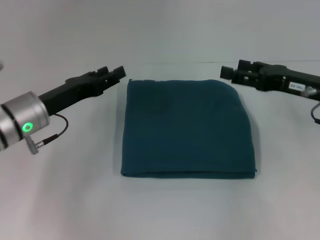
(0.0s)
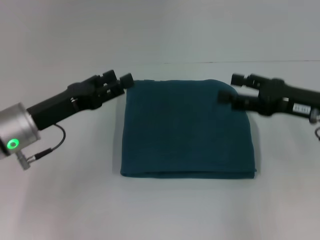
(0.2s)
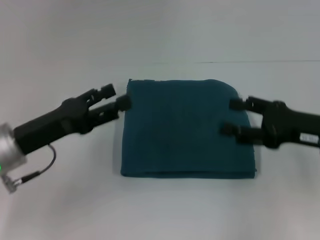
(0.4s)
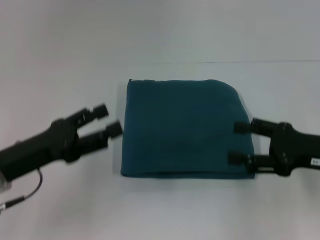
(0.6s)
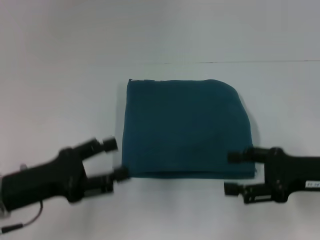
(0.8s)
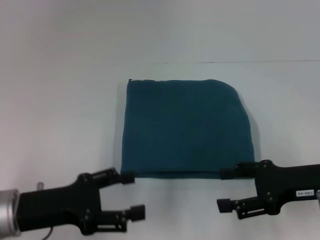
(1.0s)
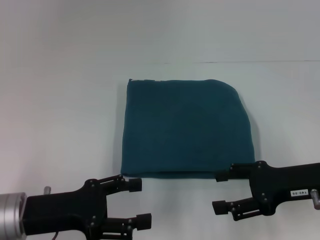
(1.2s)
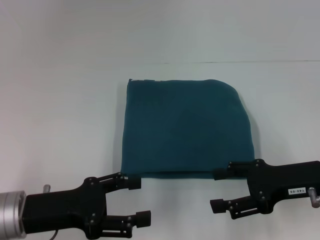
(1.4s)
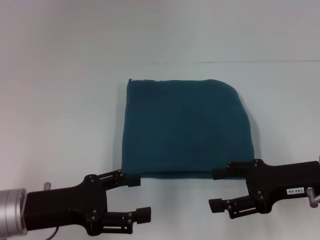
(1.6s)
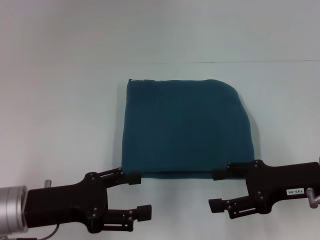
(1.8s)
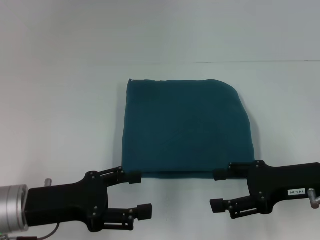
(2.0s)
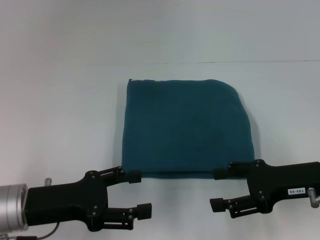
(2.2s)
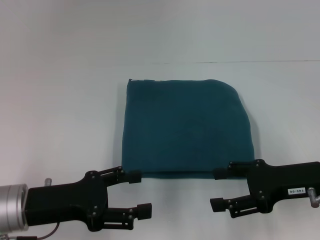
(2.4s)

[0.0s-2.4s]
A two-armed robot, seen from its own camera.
0.0s to 1.2s: The left gripper is displaced backward by about 10 cm, and opens. The right gripper goes roughly 10 cm backward.
1.2s to 2.4s: Both grippers stay about where they are.

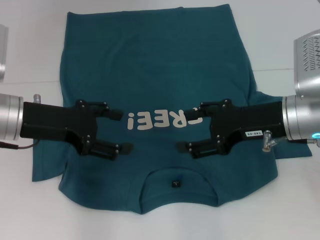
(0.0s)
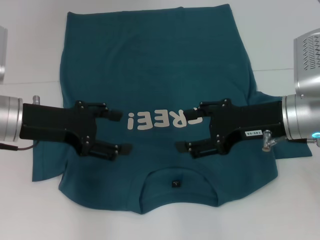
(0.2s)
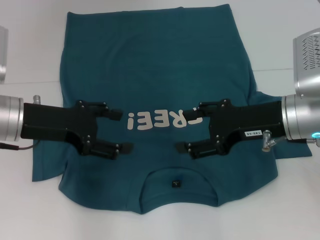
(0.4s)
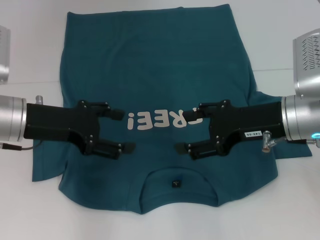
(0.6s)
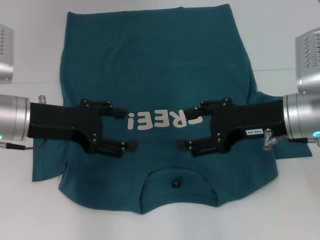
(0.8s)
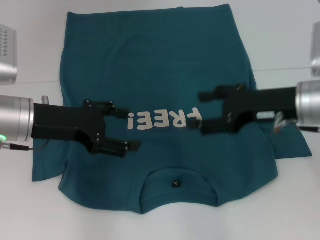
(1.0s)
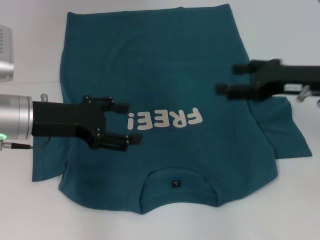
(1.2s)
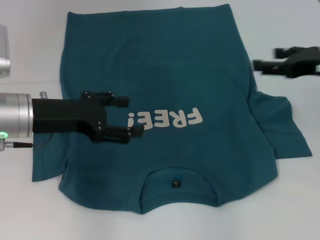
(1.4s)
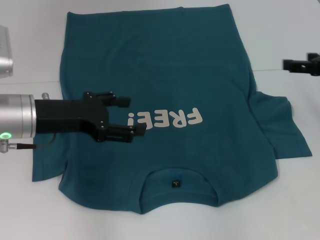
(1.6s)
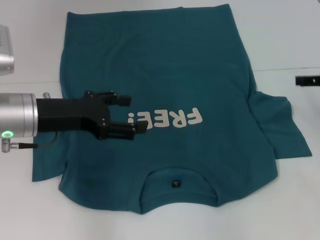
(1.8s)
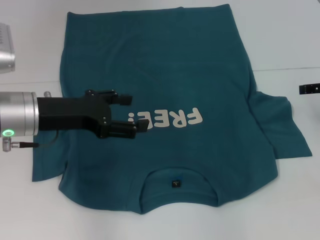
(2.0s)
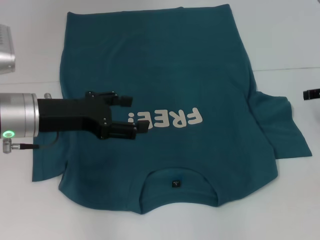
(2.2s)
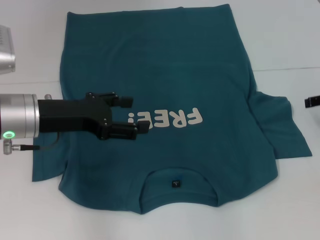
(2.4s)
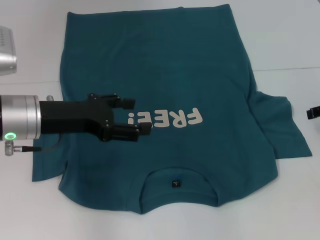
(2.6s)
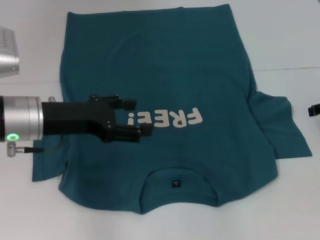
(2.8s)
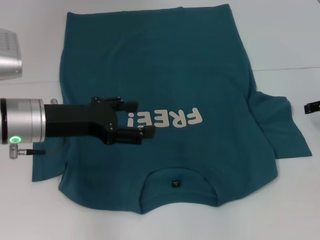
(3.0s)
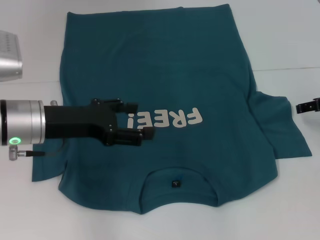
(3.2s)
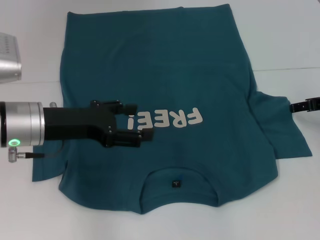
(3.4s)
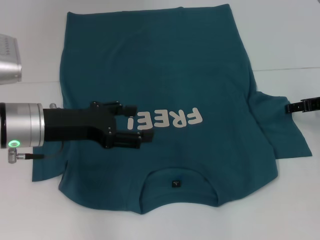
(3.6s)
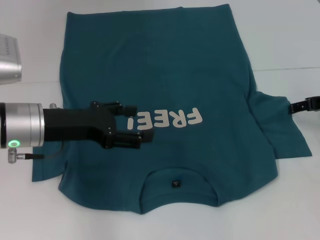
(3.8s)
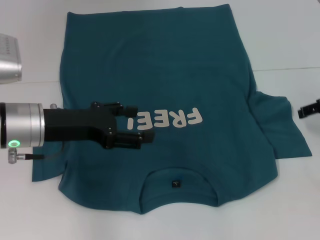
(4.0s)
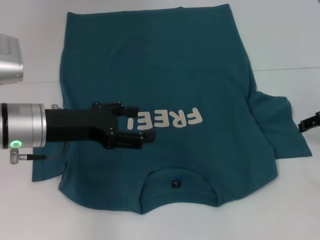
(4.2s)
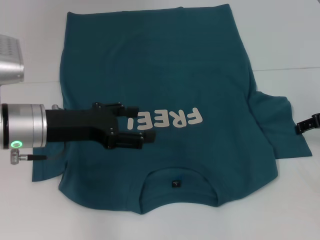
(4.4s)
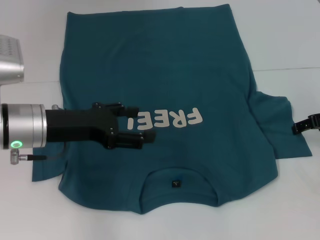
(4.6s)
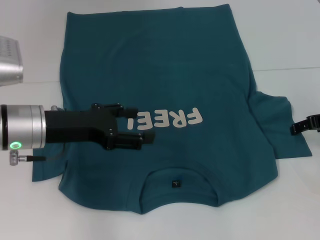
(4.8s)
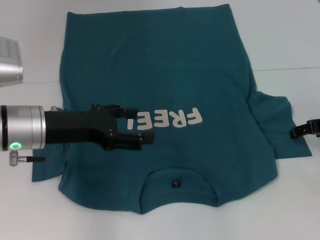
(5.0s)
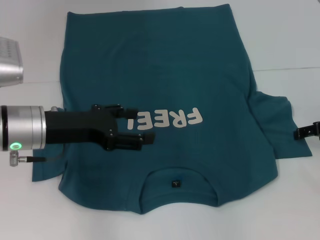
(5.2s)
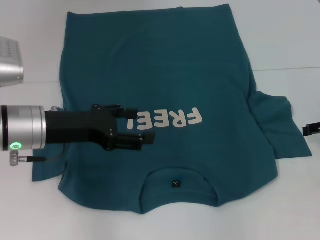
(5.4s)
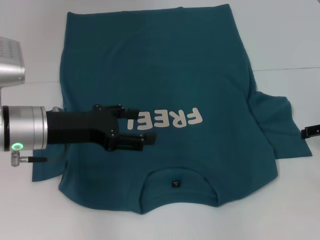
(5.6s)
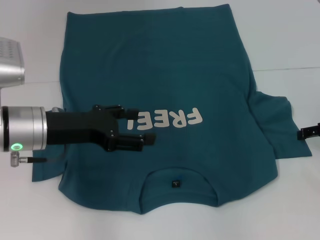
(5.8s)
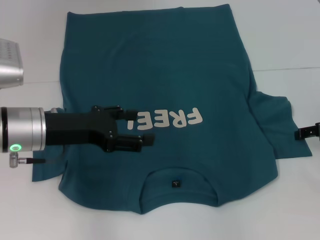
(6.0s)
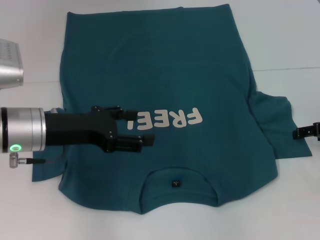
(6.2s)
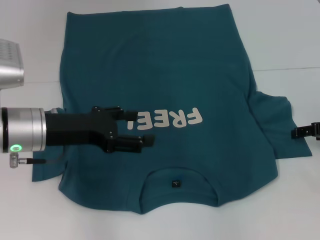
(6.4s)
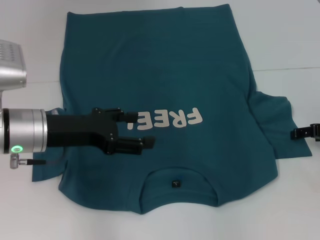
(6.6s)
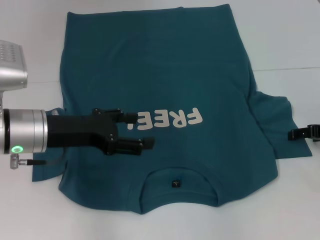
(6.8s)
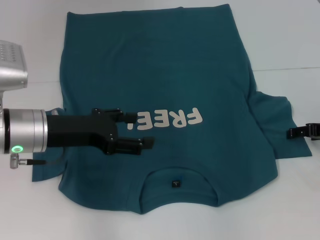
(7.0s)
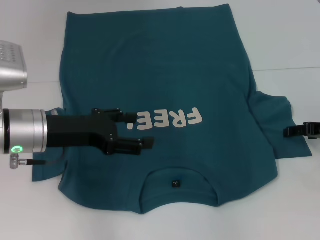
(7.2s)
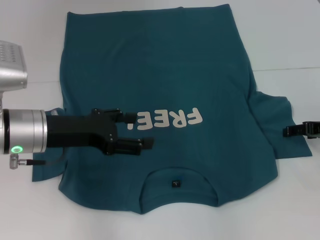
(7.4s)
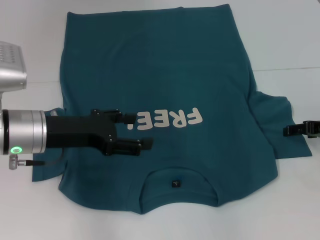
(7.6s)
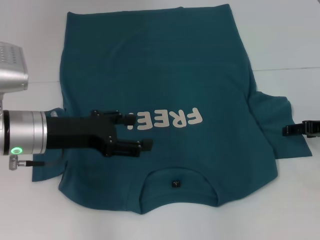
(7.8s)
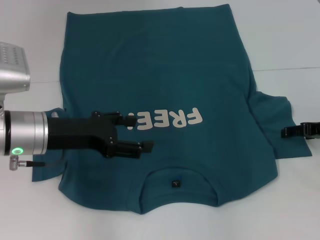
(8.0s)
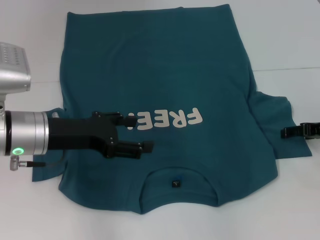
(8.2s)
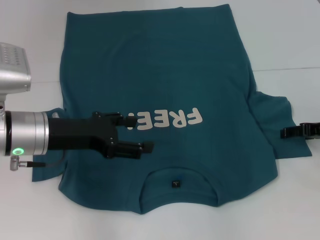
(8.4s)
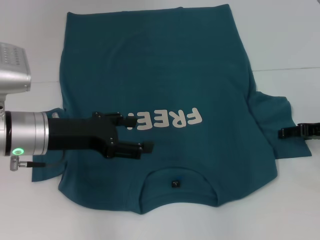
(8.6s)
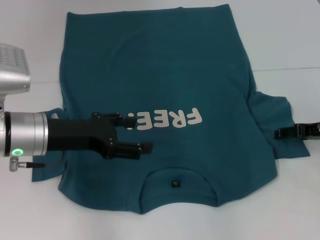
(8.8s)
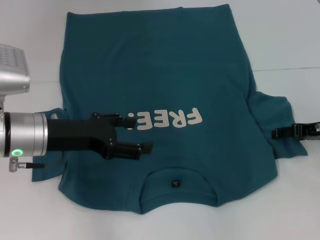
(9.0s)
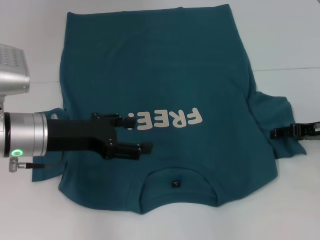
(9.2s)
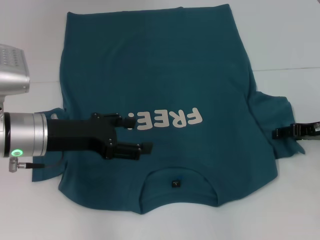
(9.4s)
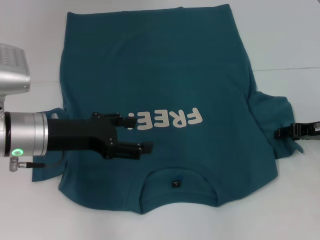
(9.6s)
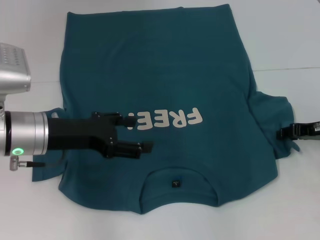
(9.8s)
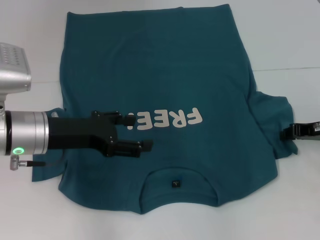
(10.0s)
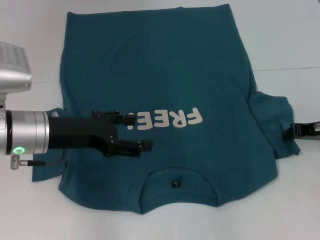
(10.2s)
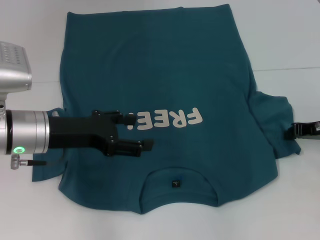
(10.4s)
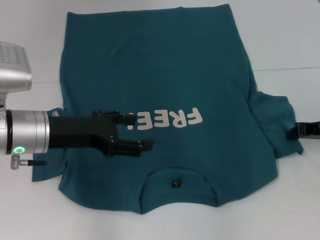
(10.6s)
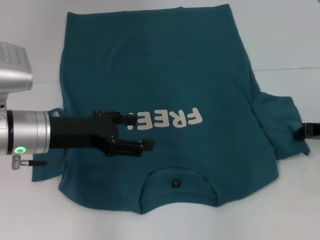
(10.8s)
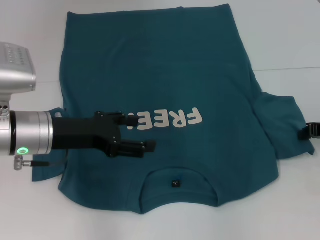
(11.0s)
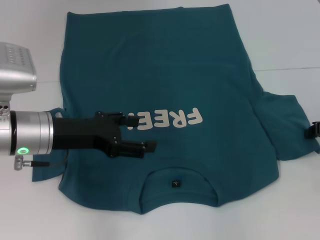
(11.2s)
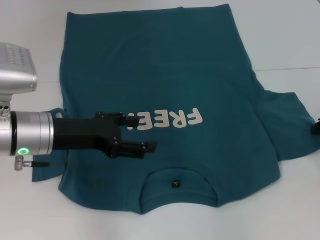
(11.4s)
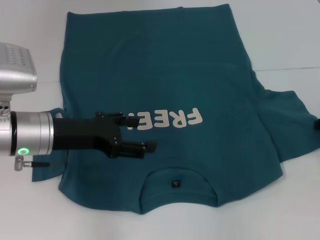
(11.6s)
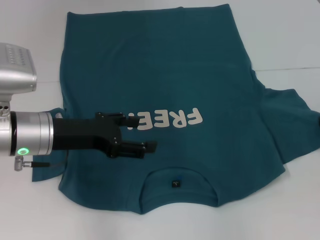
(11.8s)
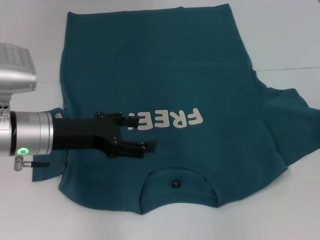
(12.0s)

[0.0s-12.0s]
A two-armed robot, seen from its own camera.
0.0s to 1.6s: The right gripper is displaced to the right by approximately 15 cm.
3.0s to 7.6s: There are only small adjustments of the grippers.
7.6s to 9.0s: The grippers stay close to where they were, moving slightly.
9.0s to 10.4s: The right gripper closes up.
10.4s to 12.0s: The grippers stay close to where they were, moving slightly.

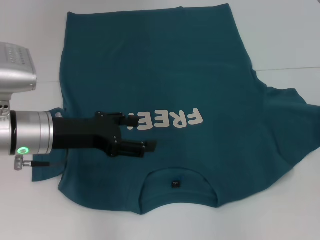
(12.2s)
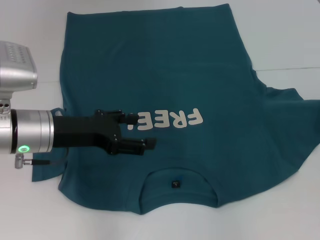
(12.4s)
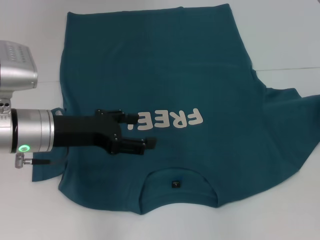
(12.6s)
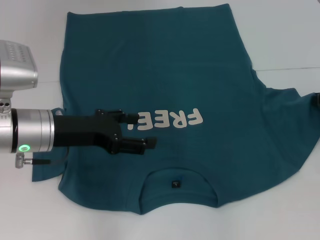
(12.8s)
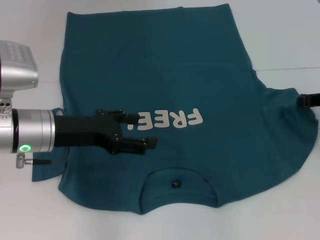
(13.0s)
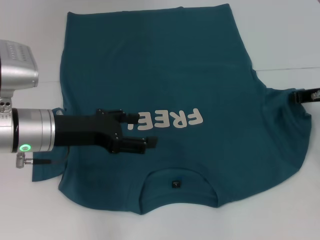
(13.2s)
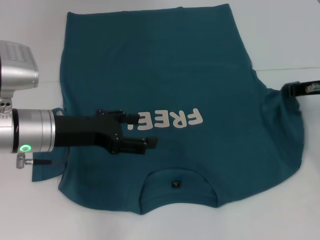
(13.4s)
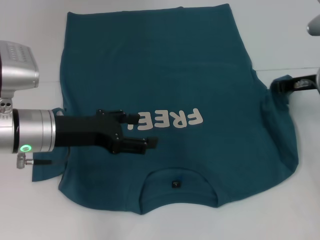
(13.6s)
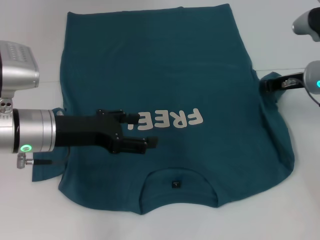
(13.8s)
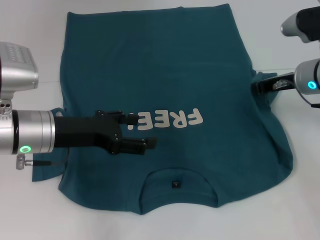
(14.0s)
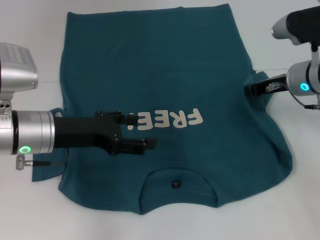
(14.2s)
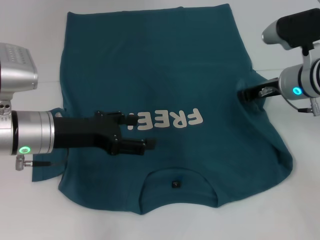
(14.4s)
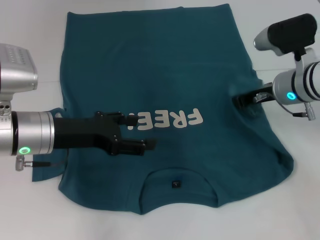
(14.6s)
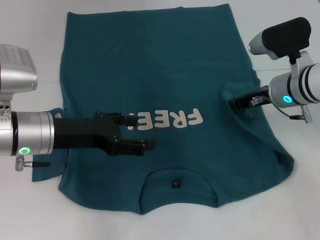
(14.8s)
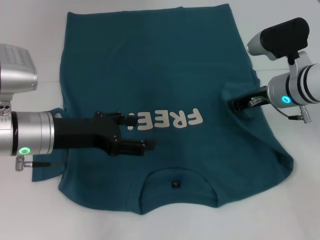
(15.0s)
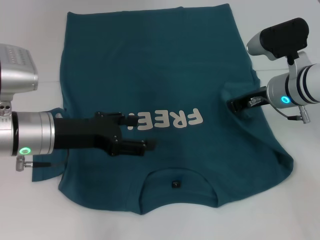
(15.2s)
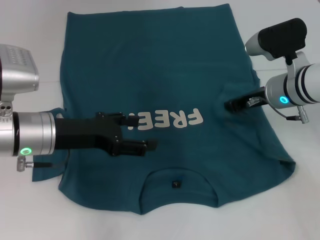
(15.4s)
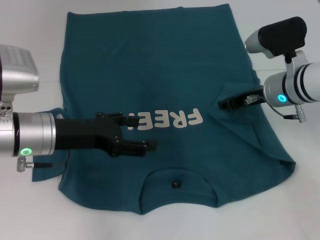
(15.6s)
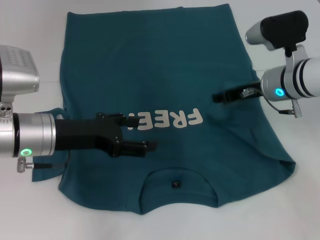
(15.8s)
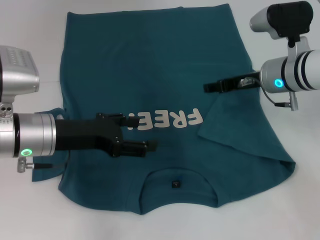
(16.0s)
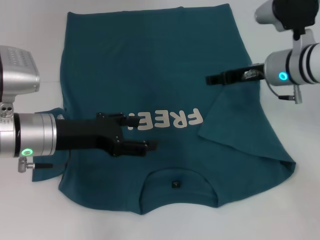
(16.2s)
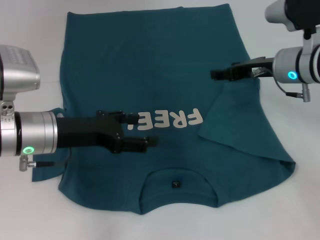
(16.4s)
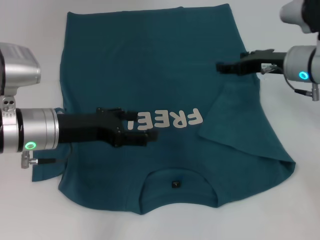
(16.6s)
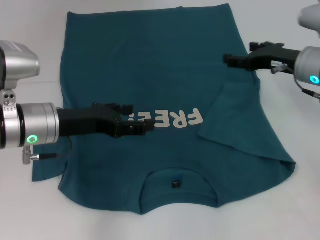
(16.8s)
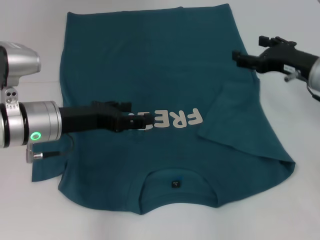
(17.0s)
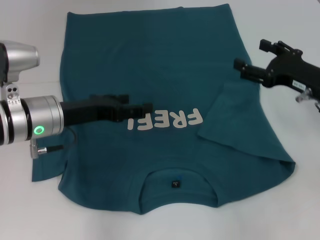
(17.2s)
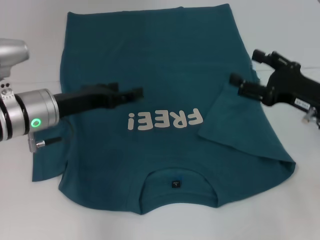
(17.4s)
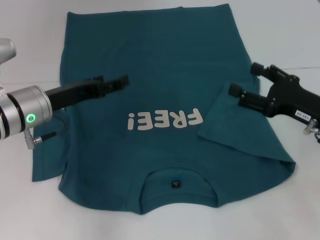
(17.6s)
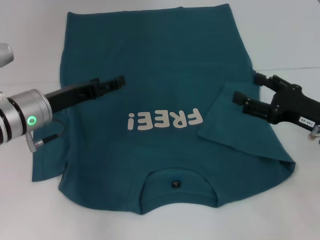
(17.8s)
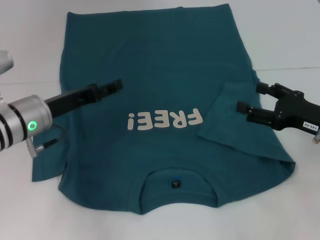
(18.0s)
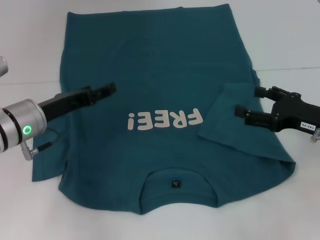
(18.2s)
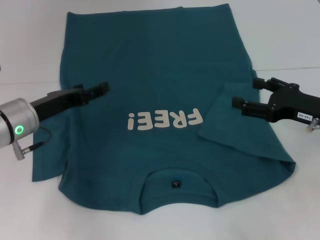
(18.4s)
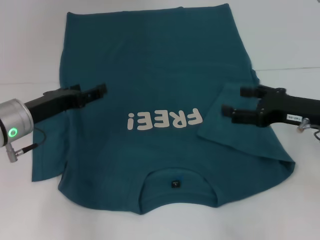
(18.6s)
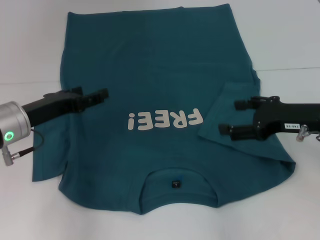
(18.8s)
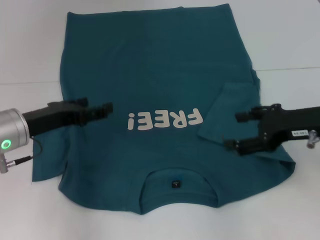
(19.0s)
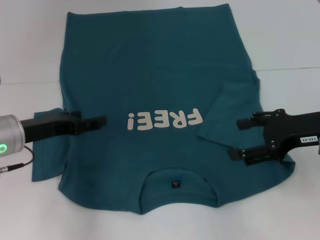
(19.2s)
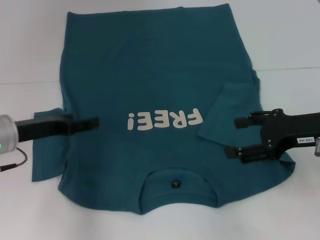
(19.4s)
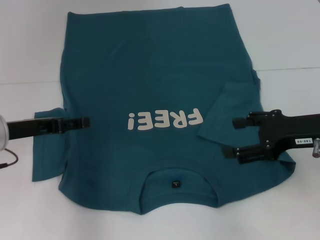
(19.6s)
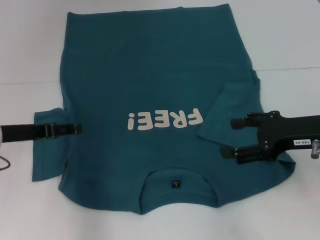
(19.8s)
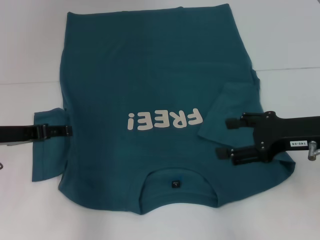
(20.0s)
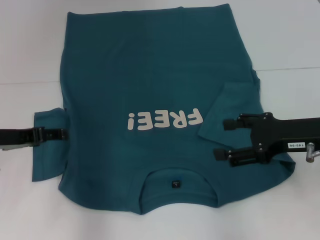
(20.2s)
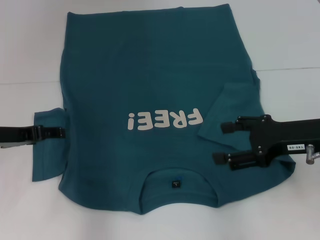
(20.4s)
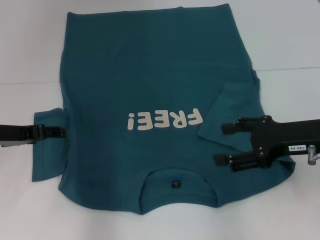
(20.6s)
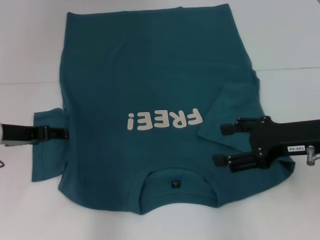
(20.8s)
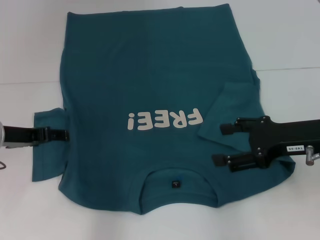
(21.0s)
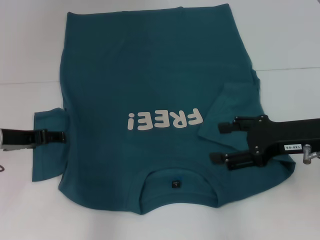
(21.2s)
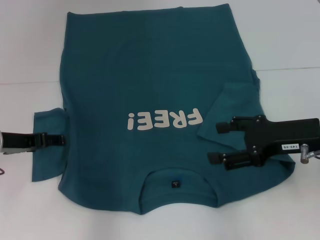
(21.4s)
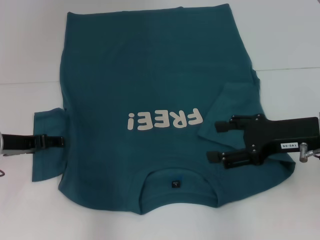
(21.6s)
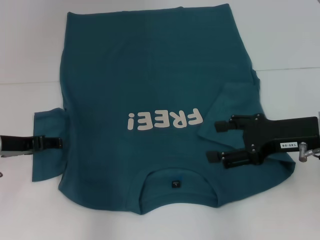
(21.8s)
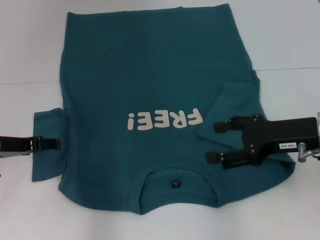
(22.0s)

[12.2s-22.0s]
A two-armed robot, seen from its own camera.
Step, 12.2s to 15.8s: Fold the bottom right sleeve to the right.
12.2s to 13.6s: The right gripper moves to the left, about 10 cm.
13.6s to 15.0s: The right gripper goes approximately 10 cm to the left.
15.0s to 16.4s: The right gripper opens.
16.4s to 17.8s: The right gripper heads backward, to the right and downward, covering approximately 15 cm.
17.8s to 19.2s: The right gripper is displaced upward by approximately 5 cm.
20.6s to 22.0s: The grippers stay close to where they were, moving slightly.
